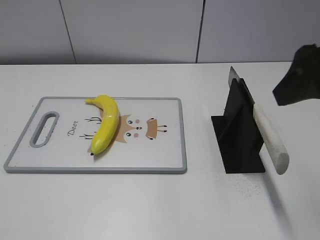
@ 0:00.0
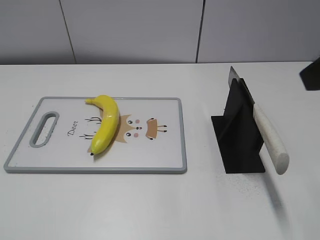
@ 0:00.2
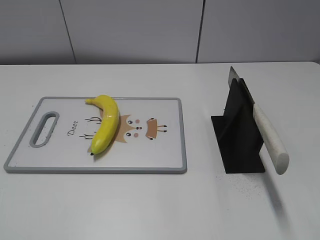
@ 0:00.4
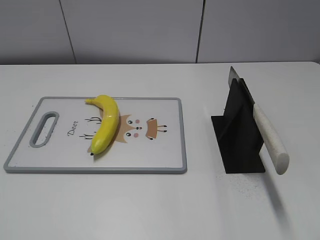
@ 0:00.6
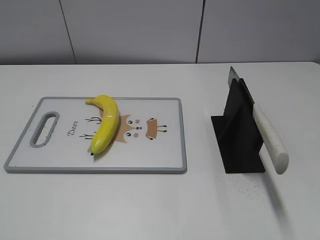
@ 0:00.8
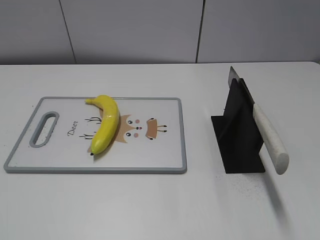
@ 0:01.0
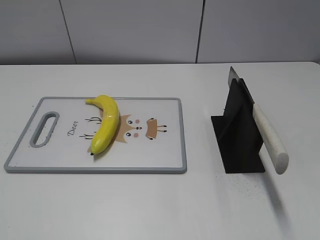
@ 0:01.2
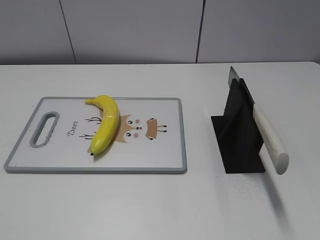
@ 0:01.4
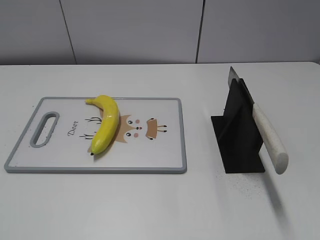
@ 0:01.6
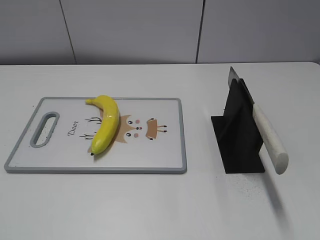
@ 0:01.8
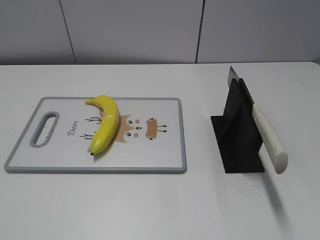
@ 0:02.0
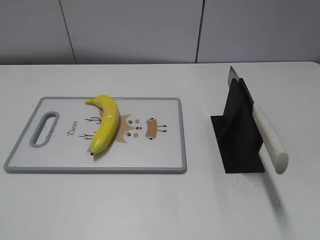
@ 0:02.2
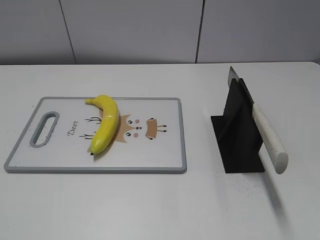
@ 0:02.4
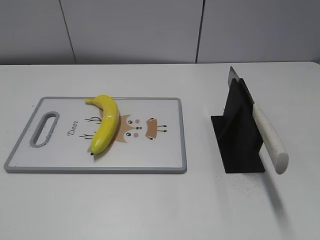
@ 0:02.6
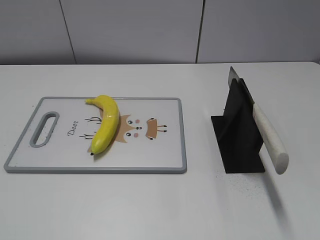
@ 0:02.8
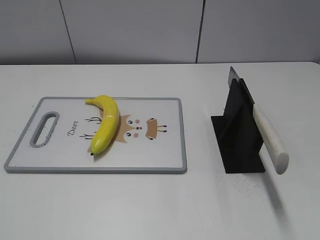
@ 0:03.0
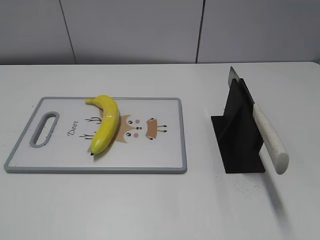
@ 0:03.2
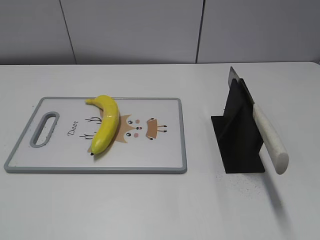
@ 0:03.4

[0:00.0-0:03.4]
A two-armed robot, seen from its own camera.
Task of the whole recording: cut plastic banana.
Step, 0:00.0 to 0:03.4: Place the knife on the storage rack with your right hand.
0:00.0 to 0:01.6: The right gripper travels backward and to the right by some 20 cm.
